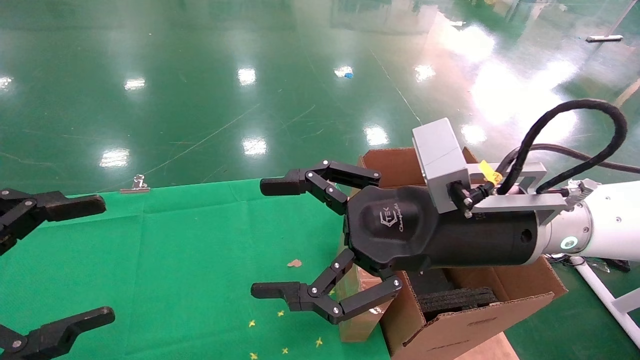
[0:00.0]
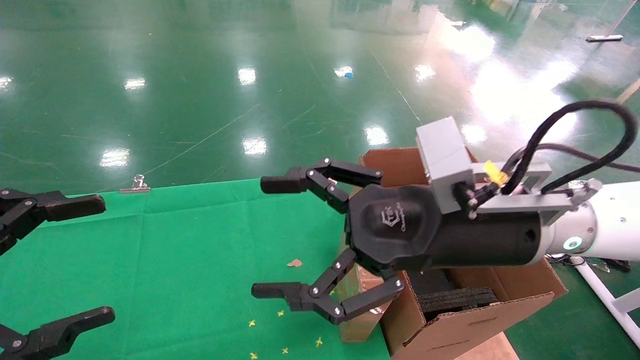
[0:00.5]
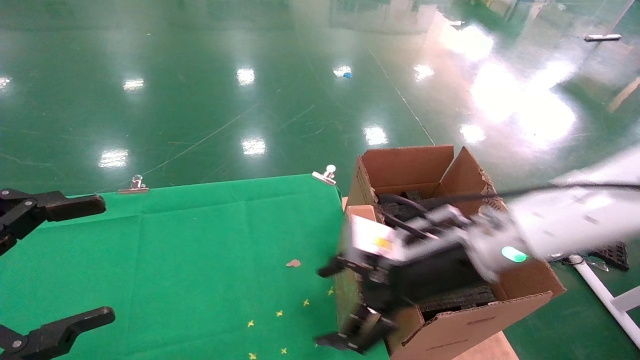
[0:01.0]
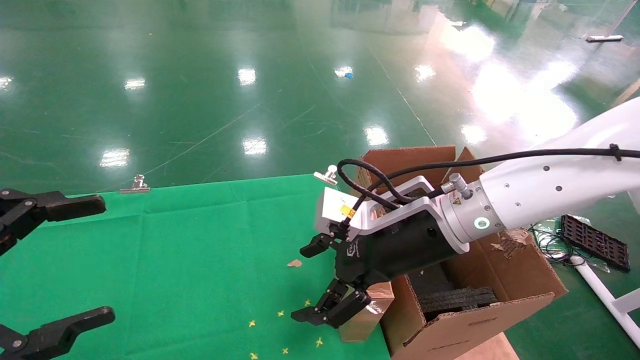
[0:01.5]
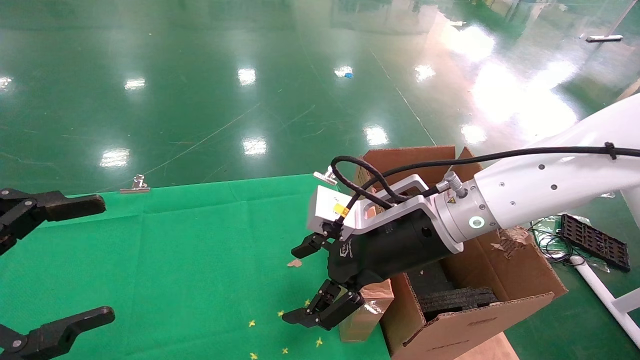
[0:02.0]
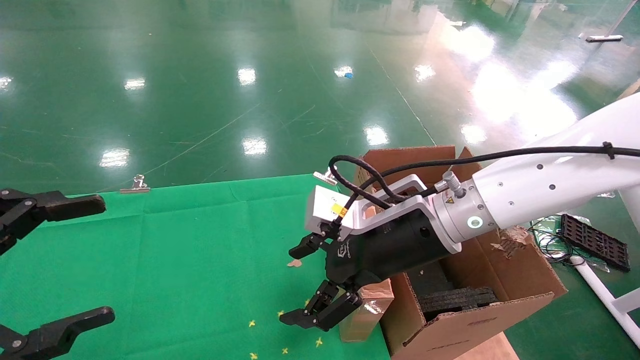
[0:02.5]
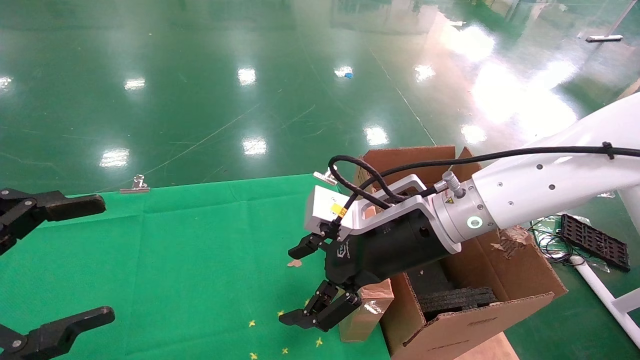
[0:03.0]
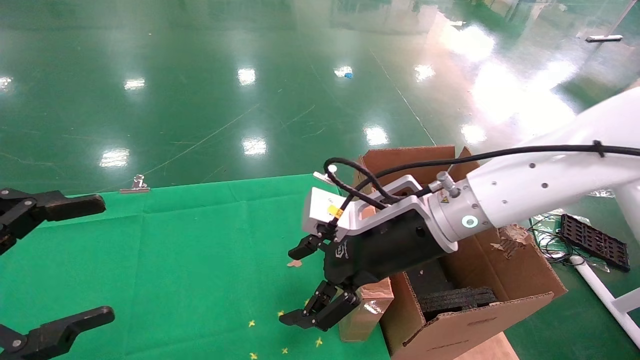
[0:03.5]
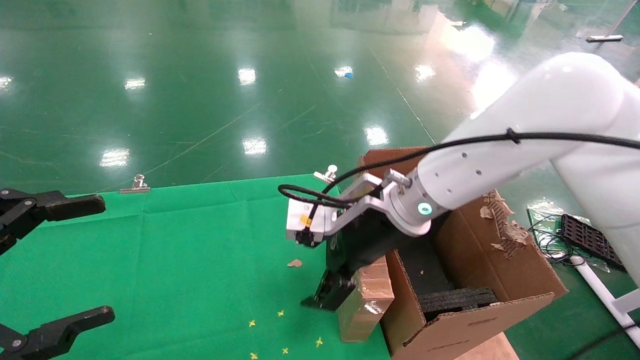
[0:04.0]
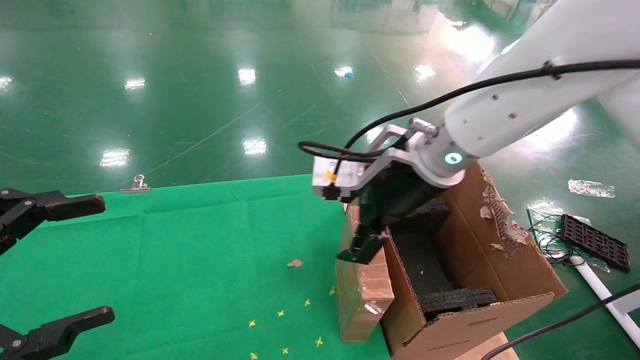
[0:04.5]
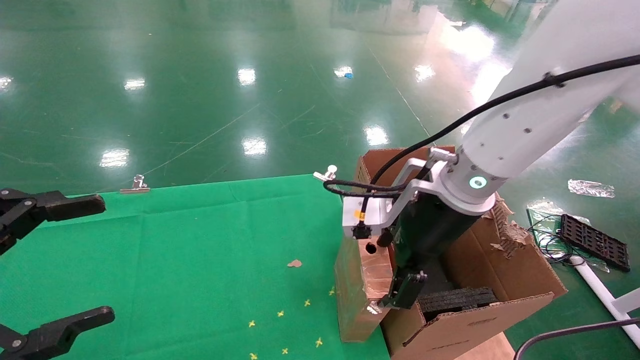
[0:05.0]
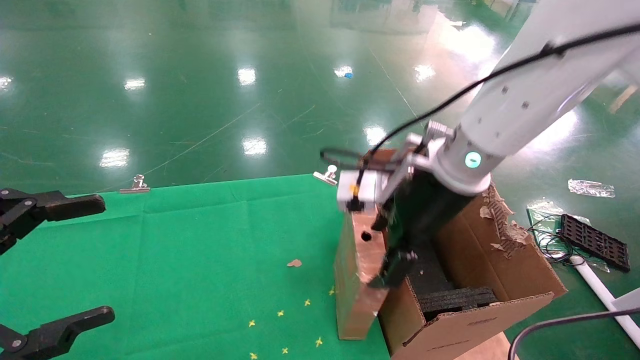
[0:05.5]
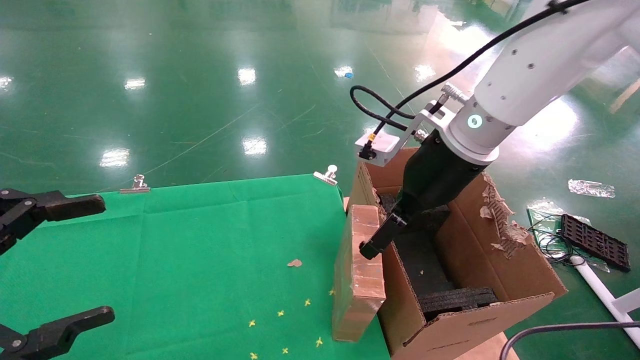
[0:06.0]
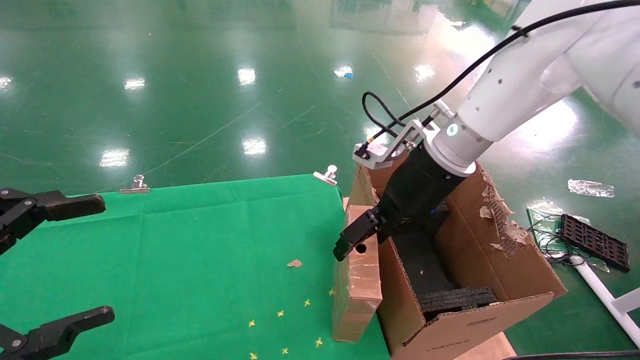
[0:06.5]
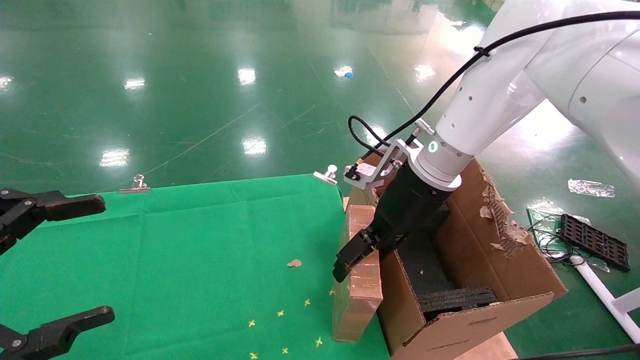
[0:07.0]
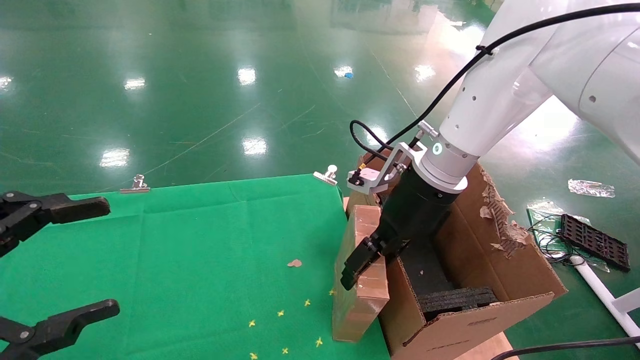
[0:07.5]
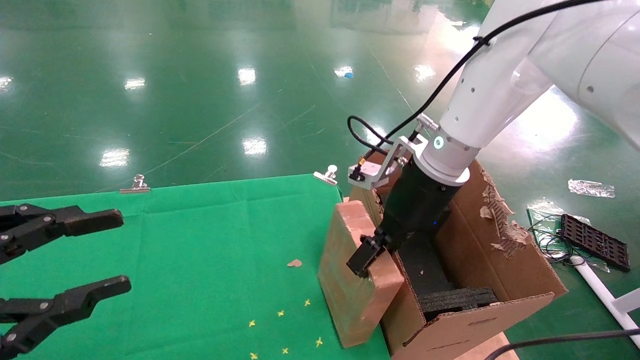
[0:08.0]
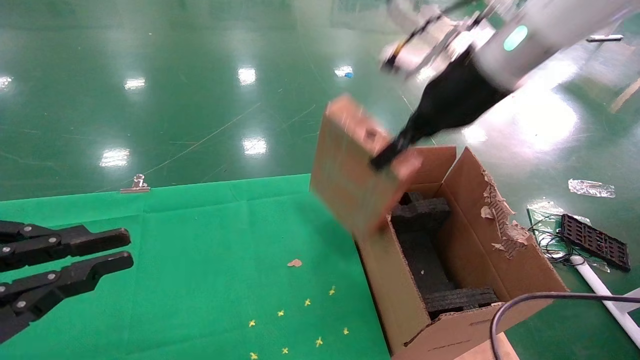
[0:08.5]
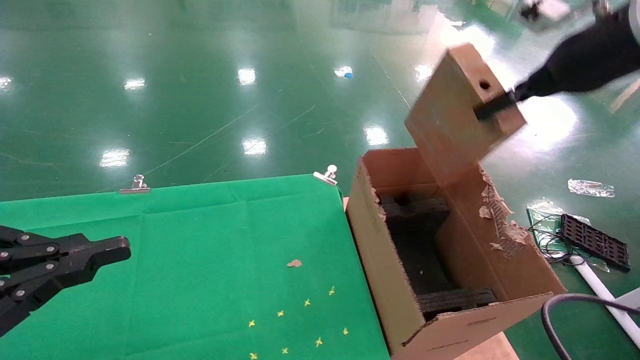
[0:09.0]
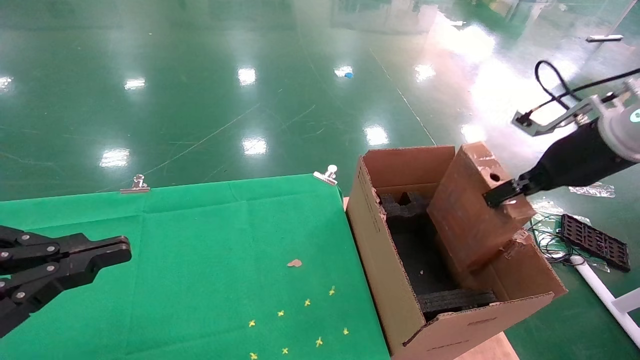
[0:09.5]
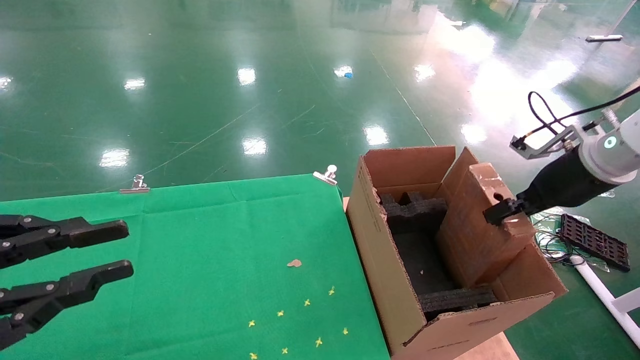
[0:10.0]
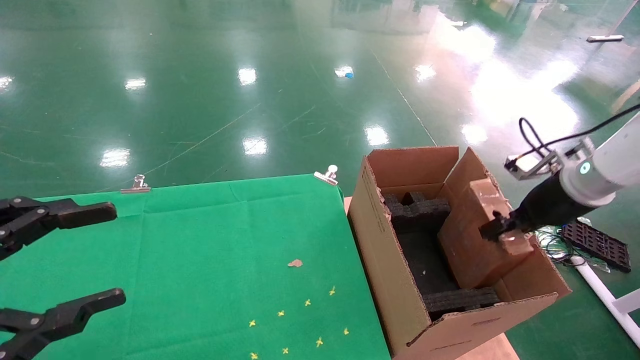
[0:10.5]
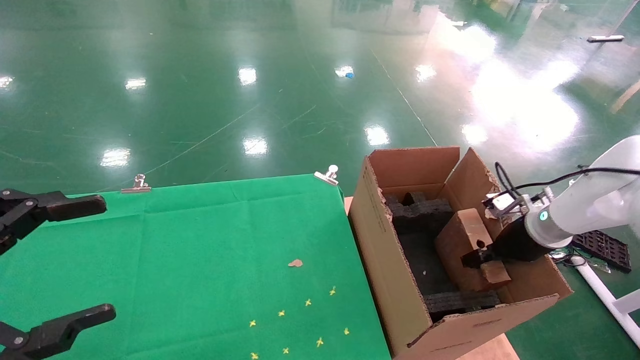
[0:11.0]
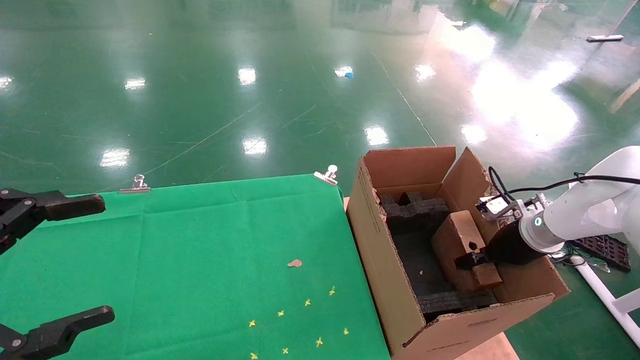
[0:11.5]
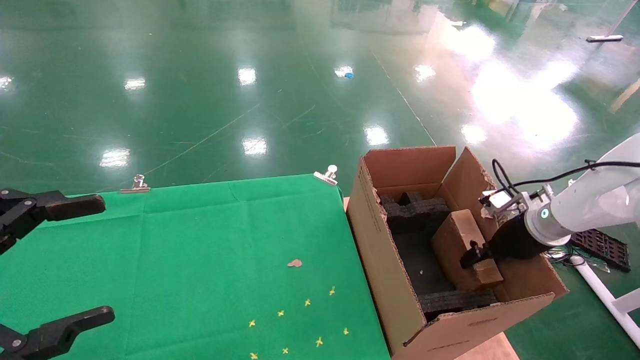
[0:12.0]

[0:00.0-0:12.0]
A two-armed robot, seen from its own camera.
Task of the whole recording: using a robotic arm to pick up a cardboard box and palace it the carton.
Step, 0:01.0 to 0:08.0: Pick up the mouse and the power cord paper box.
0:00.0 to 0:02.0: The right gripper heads forward, covering roughly 5 cm.
0:02.0 to 0:04.0: The grippers stay close to where they were, moving slightly.
0:04.0 to 0:06.0: The right gripper shifts approximately 10 cm to the right and upward.
0:06.0 to 0:08.0: The left gripper closes up, while the right gripper closes its fingers.
0:08.0 to 0:10.0: The right gripper moves to the right, approximately 25 cm. The left gripper closes.
0:10.0 to 0:12.0: The right gripper heads downward, covering some 15 cm, while the left gripper opens.

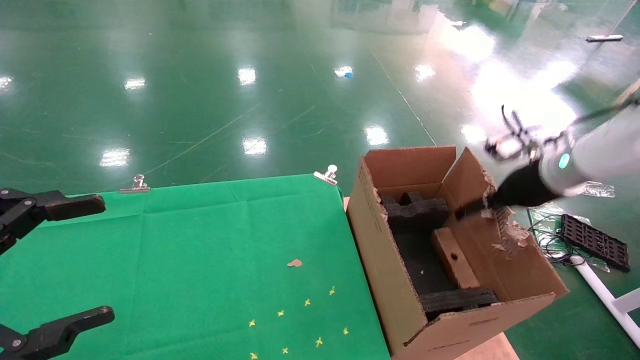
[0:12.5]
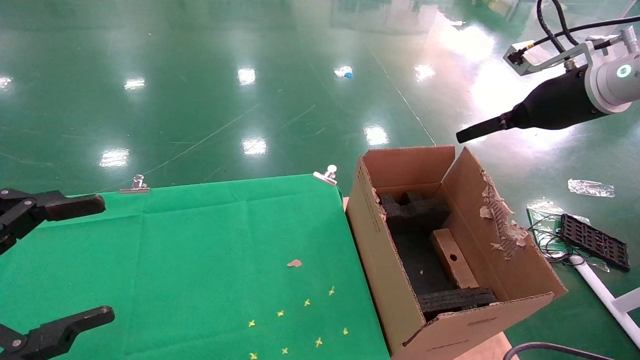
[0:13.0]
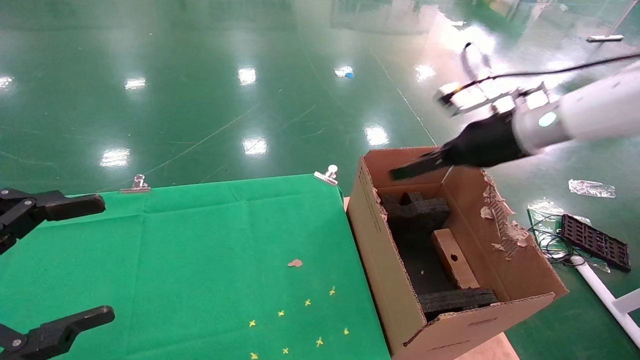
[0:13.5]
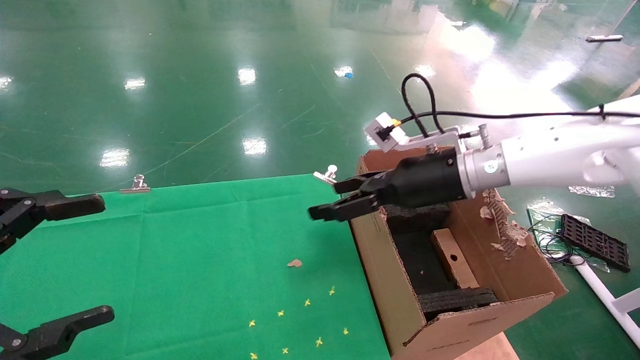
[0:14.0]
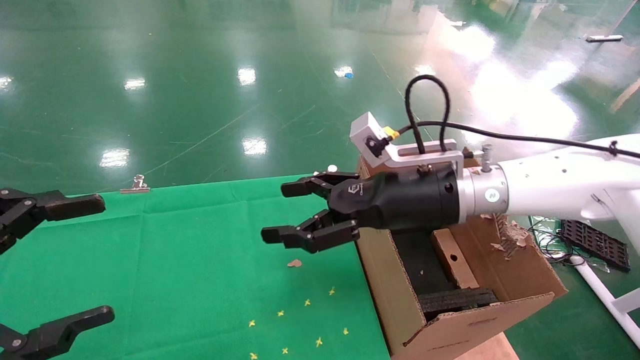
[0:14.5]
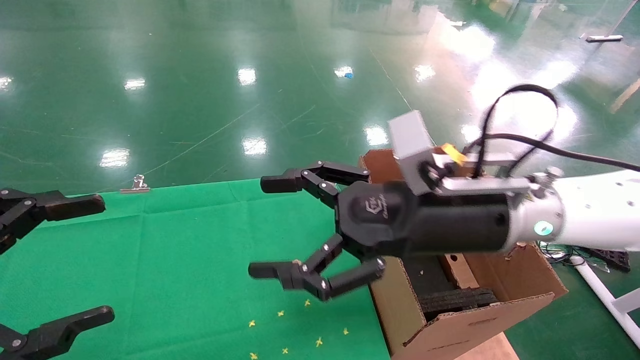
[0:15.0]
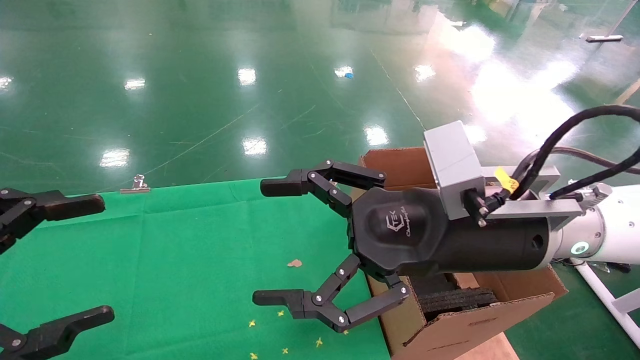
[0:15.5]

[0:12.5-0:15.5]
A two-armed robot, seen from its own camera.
Task of the whole recording: using a robotic arm to pick up a cardboard box and palace it the carton.
0:12.5 to 0:14.0: The right gripper heads to the left, covering some 20 cm.
0:14.0 to 0:15.5: The right gripper is displaced backward by roughly 15 cm.
